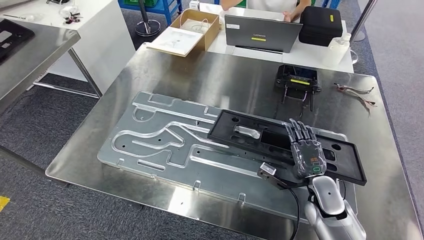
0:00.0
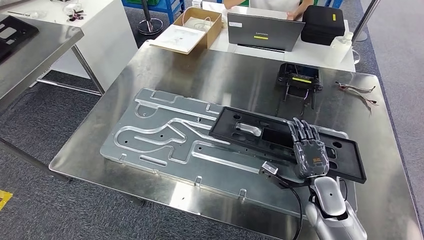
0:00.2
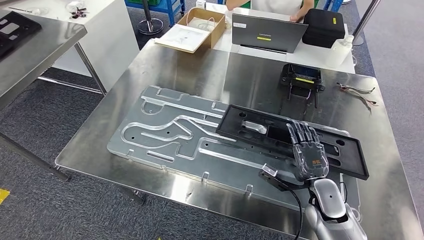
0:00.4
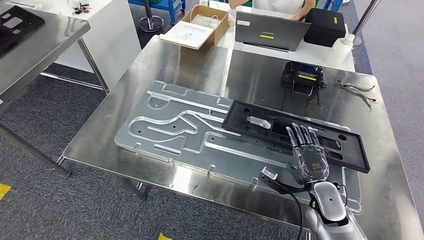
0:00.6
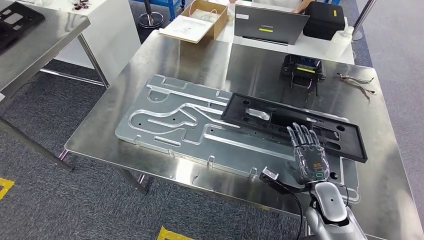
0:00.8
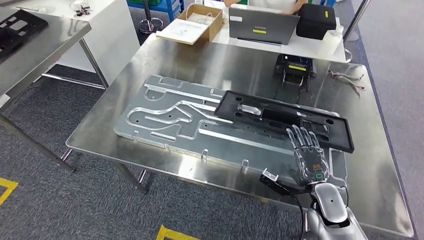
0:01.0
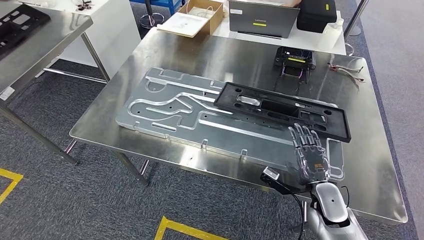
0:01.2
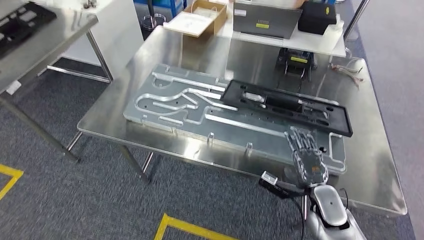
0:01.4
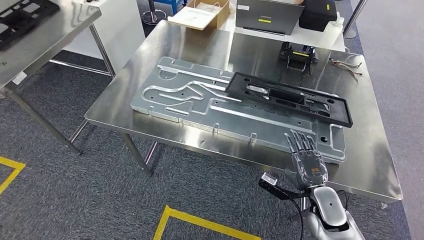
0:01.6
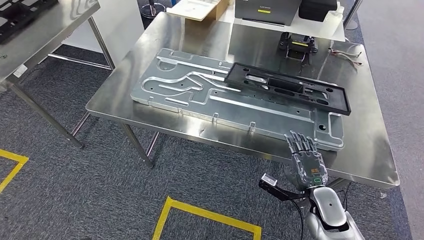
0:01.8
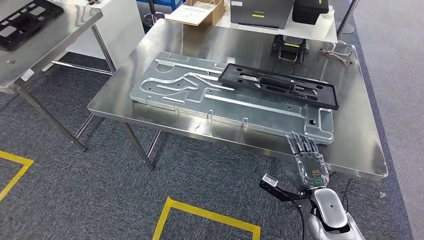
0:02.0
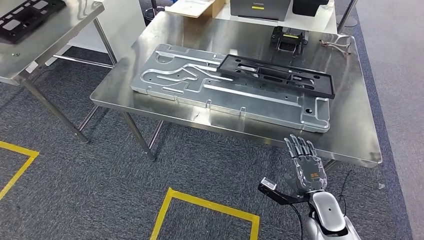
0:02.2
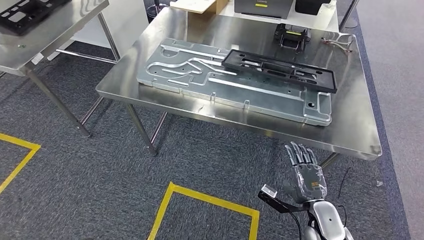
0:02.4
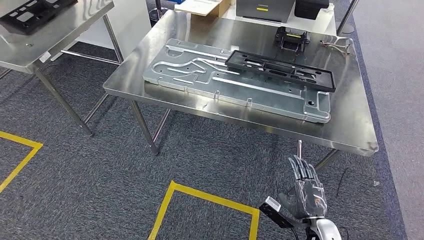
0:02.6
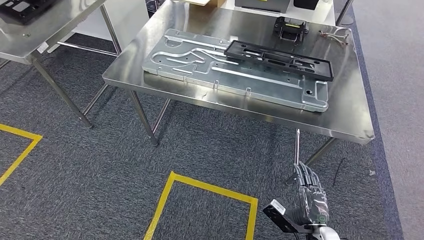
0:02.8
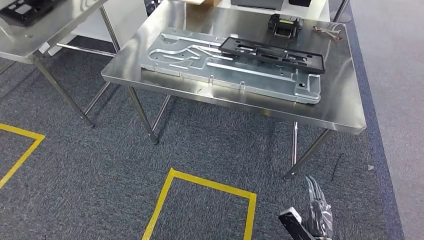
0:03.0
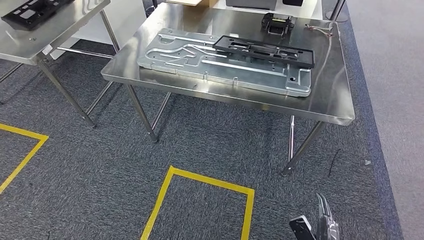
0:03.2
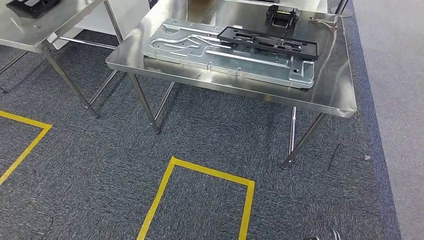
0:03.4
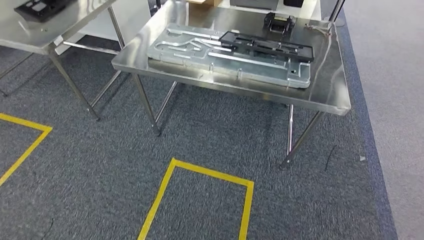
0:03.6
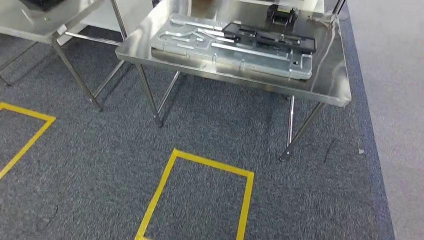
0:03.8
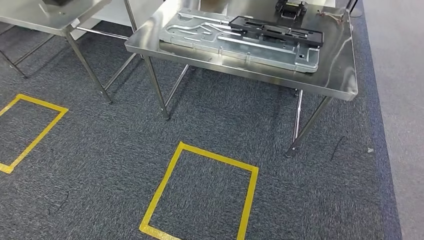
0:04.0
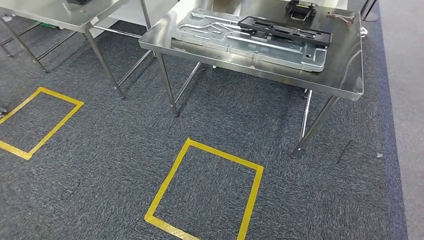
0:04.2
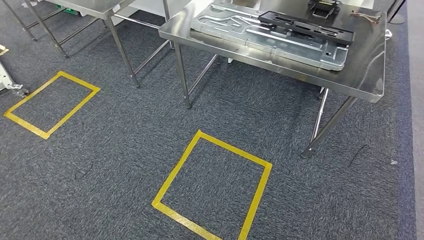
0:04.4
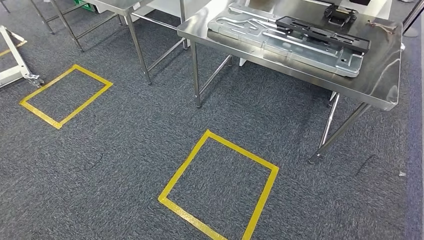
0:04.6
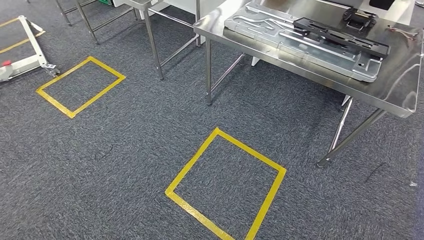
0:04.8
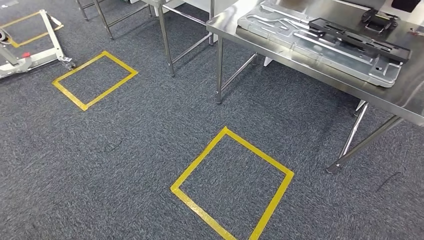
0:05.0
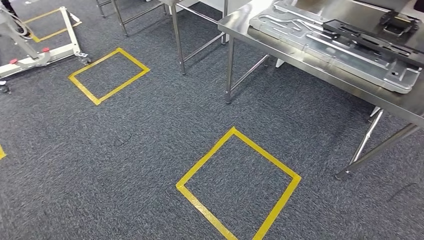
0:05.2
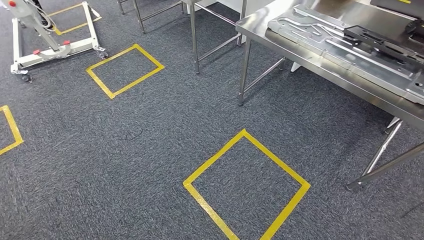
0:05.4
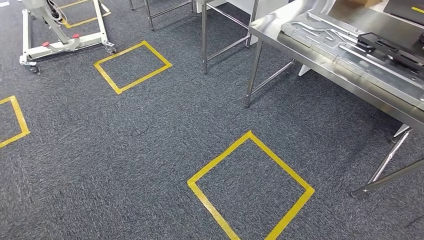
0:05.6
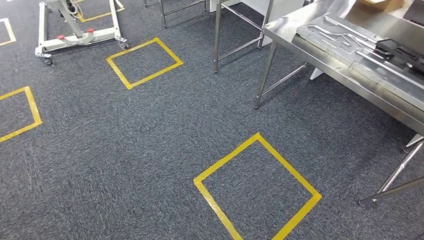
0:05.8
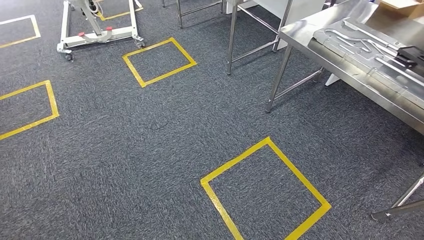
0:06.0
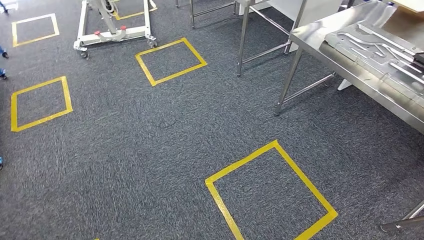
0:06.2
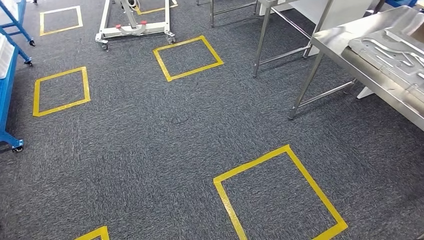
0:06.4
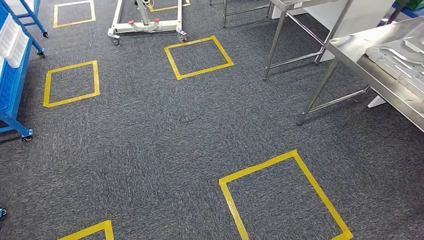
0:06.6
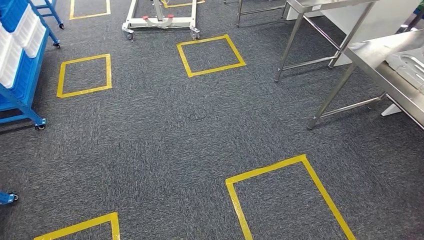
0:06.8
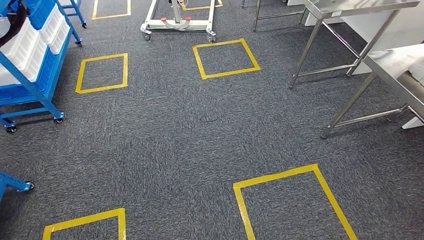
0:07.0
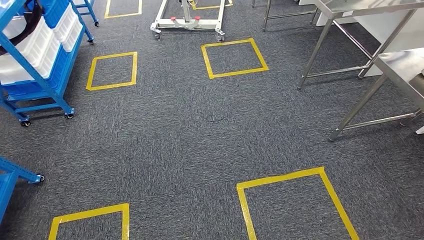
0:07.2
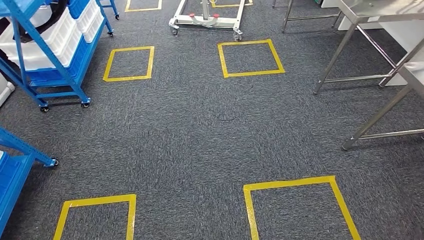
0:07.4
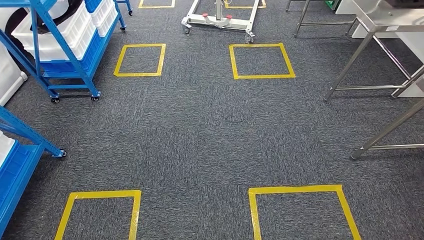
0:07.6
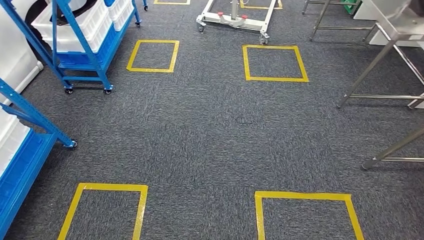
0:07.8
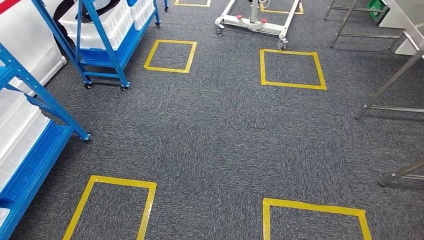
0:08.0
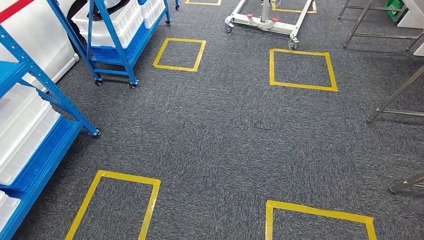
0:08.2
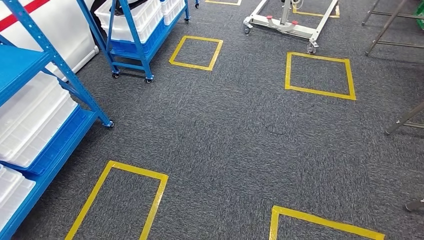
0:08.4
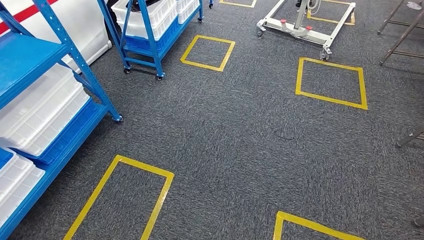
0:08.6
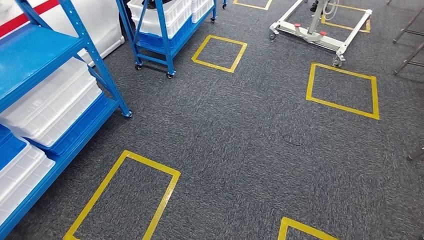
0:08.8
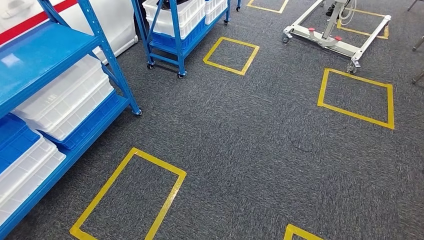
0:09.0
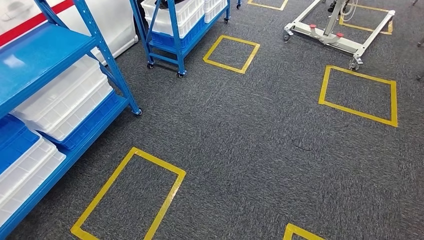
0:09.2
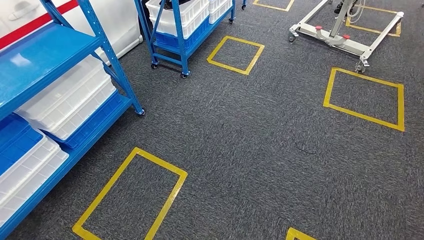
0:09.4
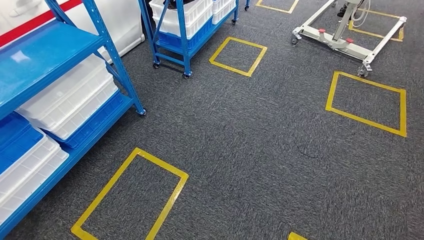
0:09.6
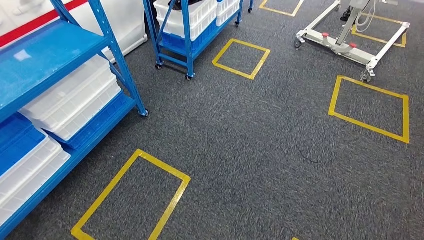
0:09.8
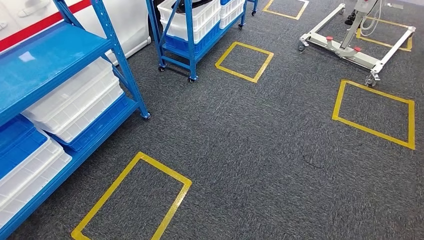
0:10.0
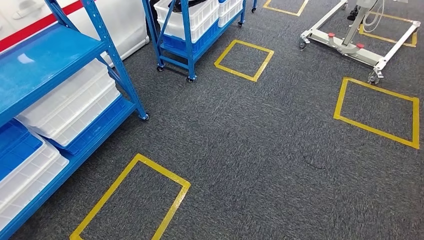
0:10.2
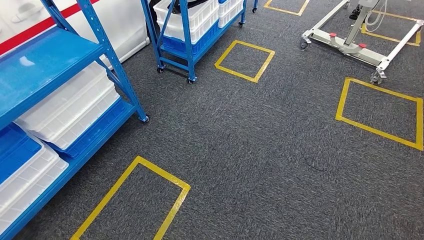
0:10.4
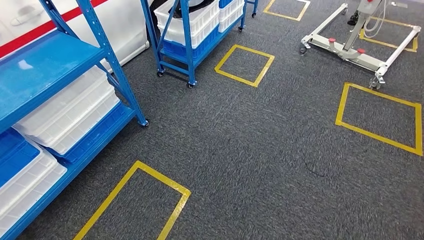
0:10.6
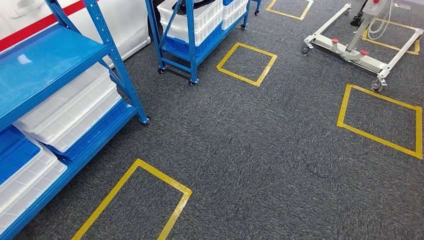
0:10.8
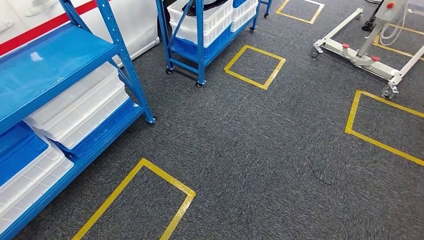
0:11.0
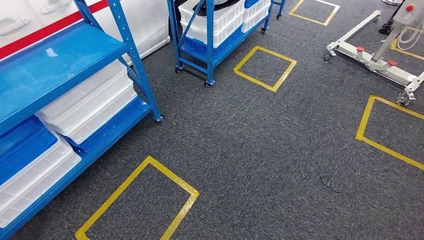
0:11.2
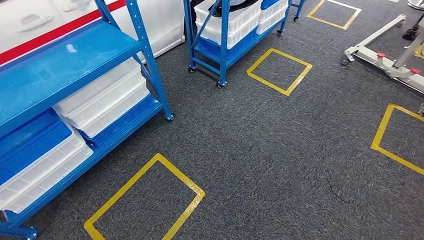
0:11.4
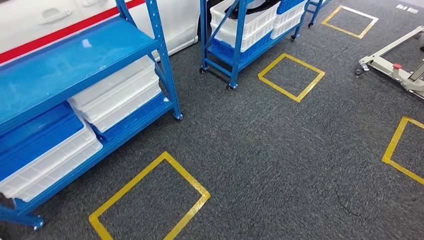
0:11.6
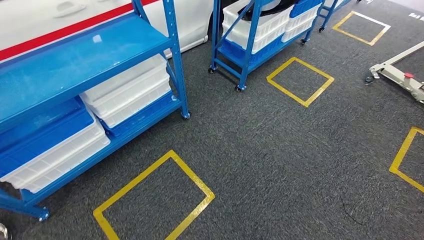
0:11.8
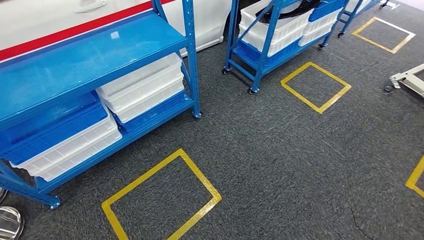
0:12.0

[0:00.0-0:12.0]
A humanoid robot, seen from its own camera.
Step, 0:00.0 to 0:03.6: Insert the large material into the corresponding slot on the workbench.

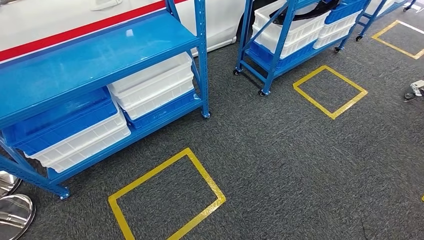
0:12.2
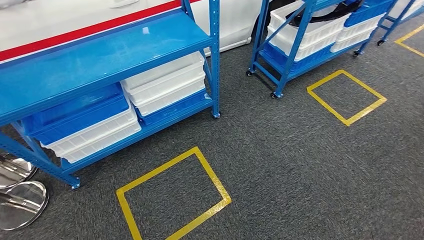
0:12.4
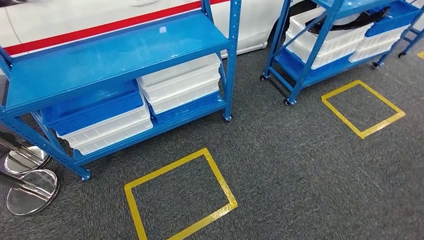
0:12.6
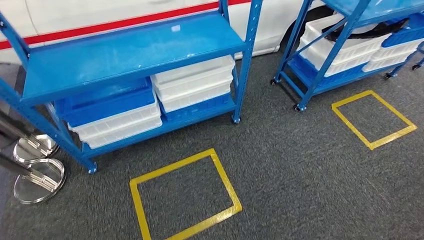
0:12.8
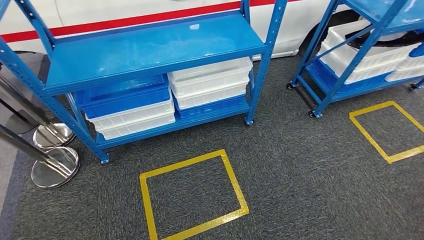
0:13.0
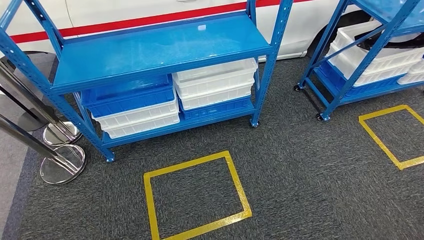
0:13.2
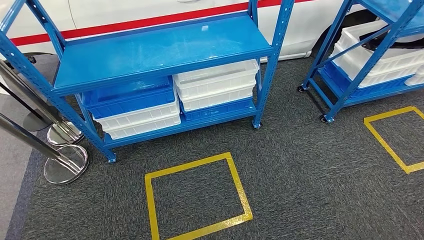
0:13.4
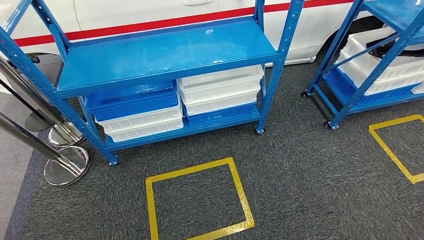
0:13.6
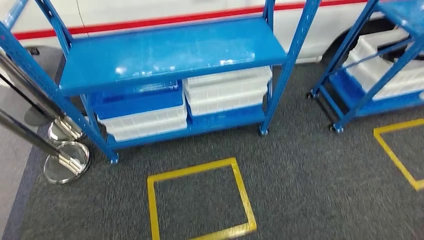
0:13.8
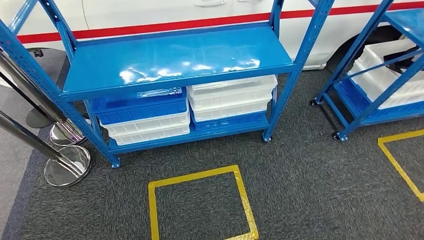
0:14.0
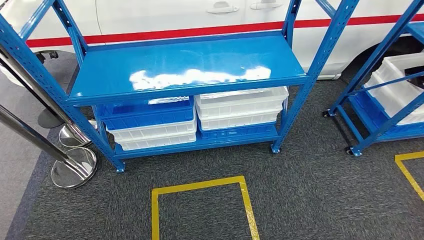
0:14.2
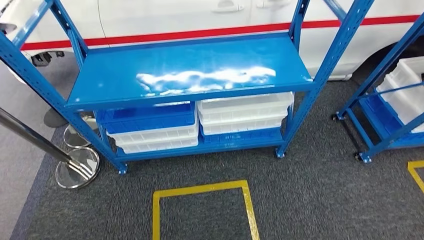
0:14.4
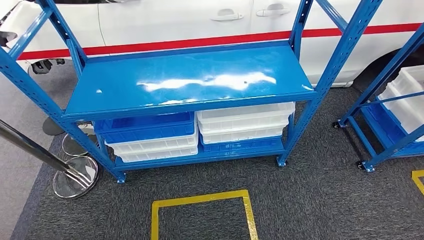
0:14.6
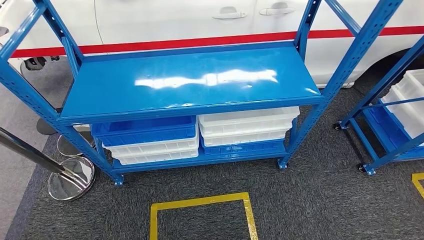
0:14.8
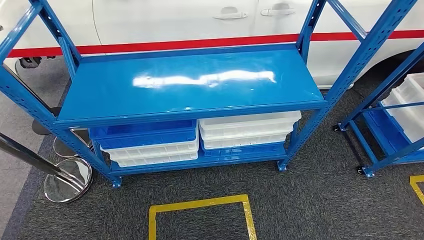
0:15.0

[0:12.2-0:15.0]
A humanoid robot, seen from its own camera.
Step, 0:12.2 to 0:14.8: Move to the initial position of the shelf.

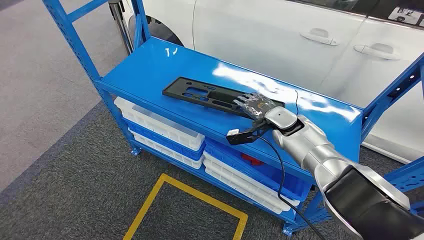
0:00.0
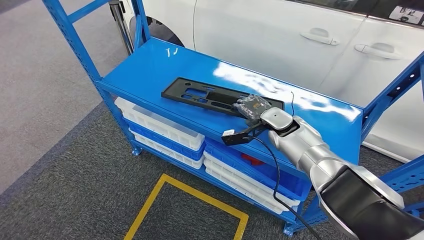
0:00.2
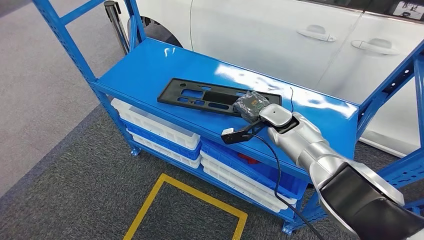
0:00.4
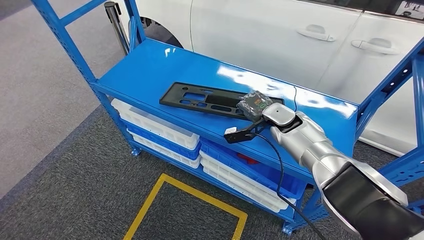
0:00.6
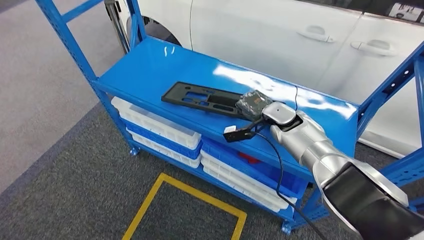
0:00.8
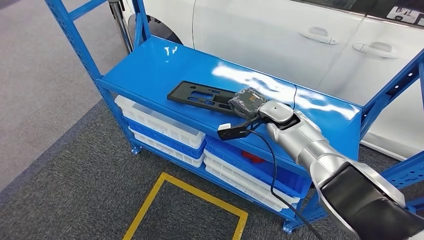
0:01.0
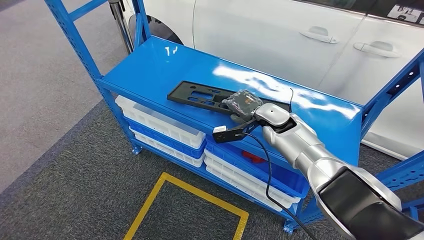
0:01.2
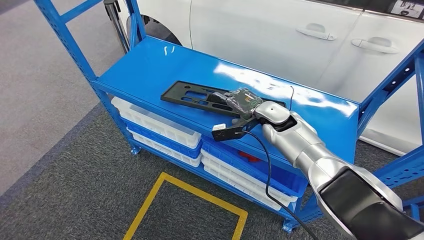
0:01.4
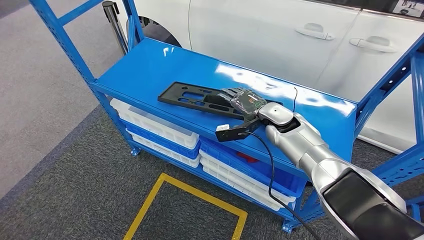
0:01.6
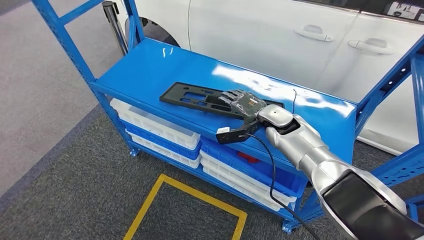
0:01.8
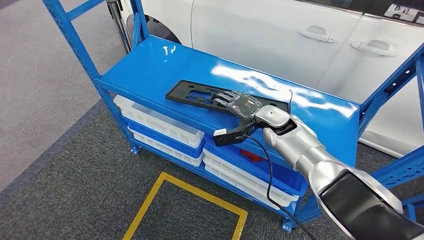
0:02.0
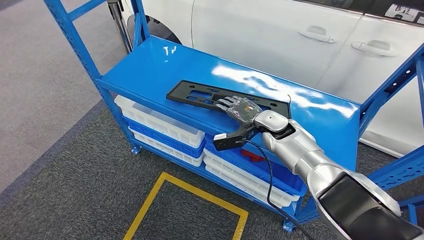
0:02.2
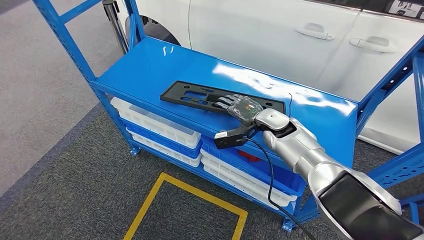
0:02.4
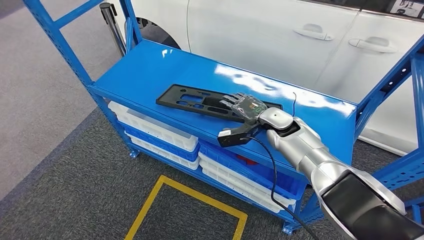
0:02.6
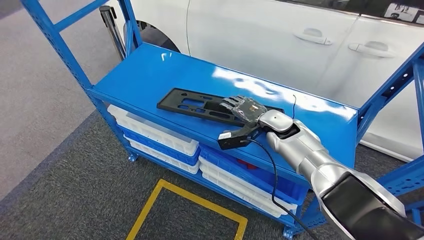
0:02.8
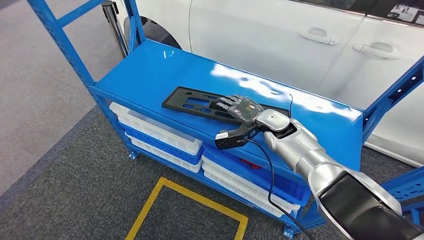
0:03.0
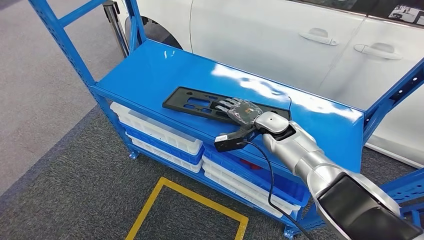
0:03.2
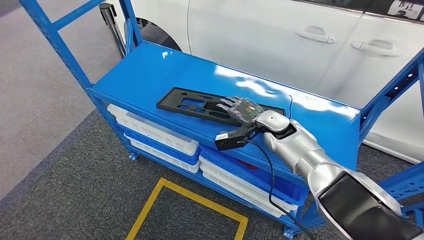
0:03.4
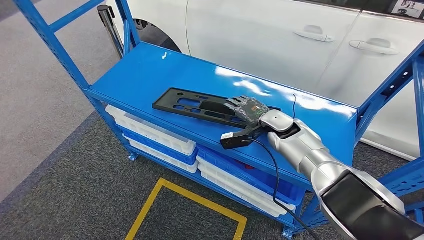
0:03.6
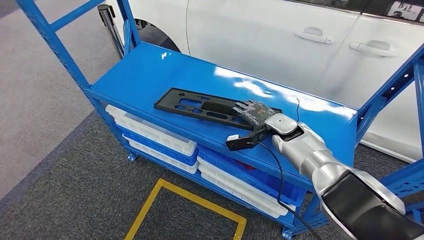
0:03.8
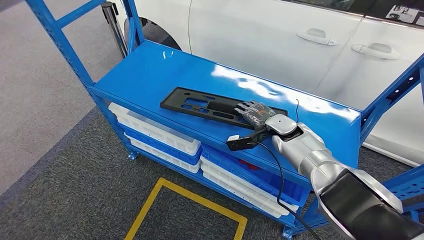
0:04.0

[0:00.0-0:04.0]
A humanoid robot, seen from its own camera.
0:01.4 to 0:02.6: The hands stay close to where they were, moving slightly.
